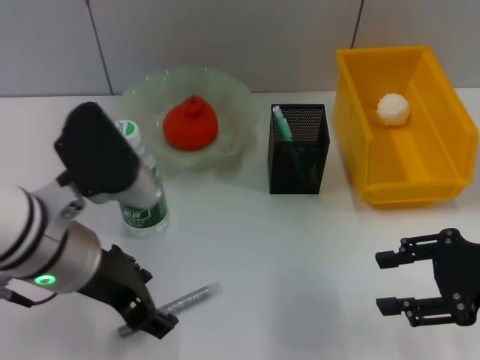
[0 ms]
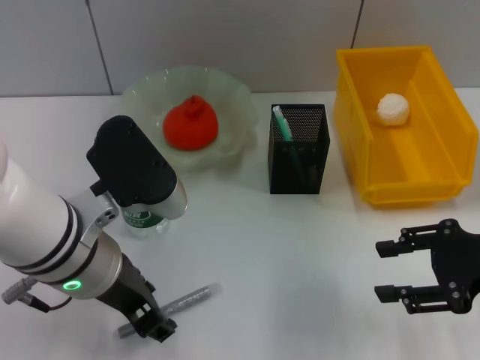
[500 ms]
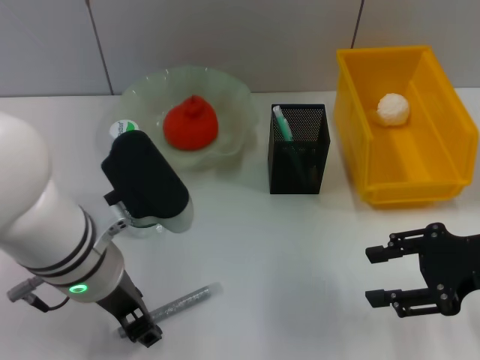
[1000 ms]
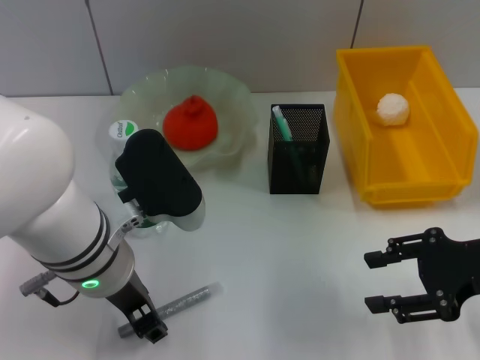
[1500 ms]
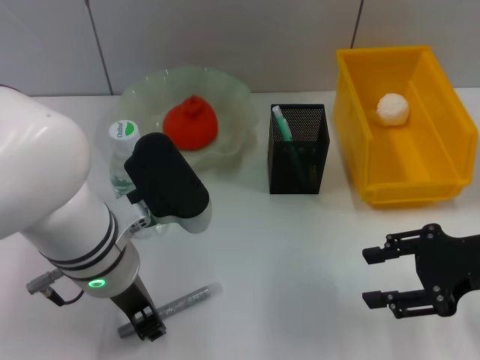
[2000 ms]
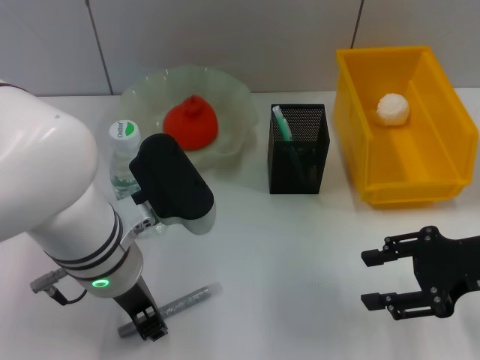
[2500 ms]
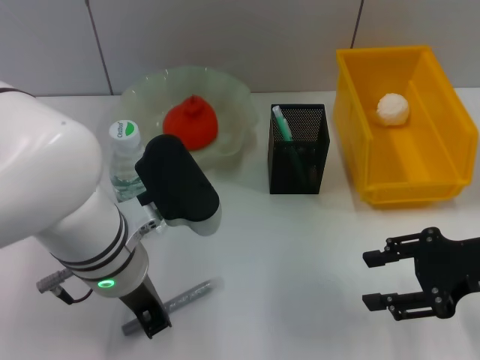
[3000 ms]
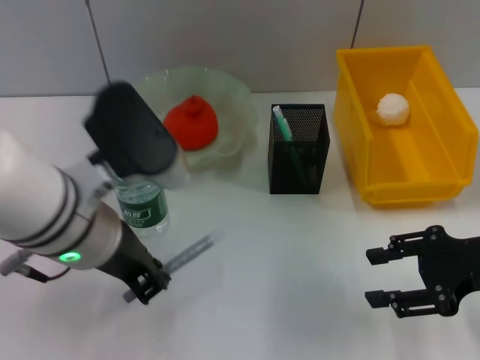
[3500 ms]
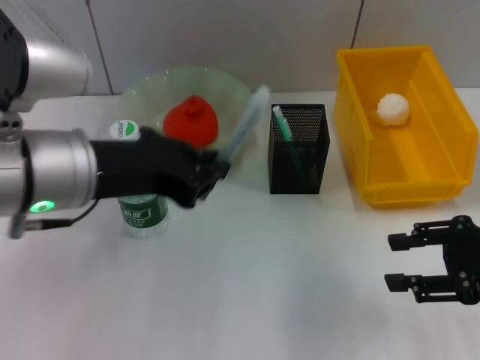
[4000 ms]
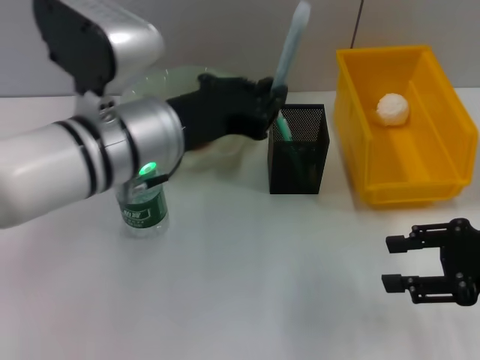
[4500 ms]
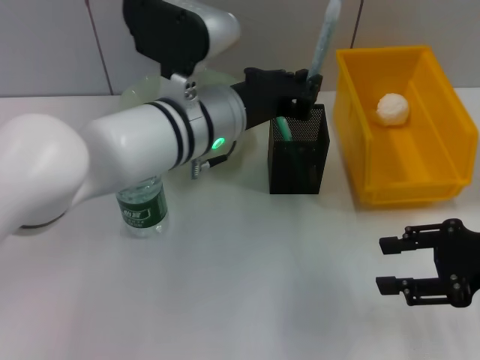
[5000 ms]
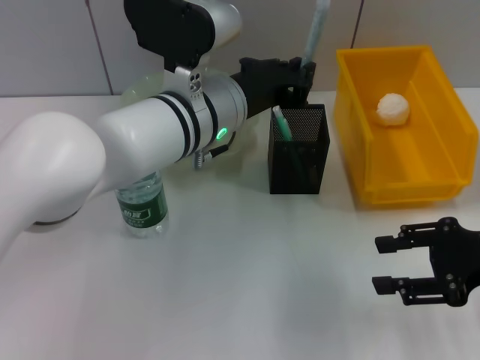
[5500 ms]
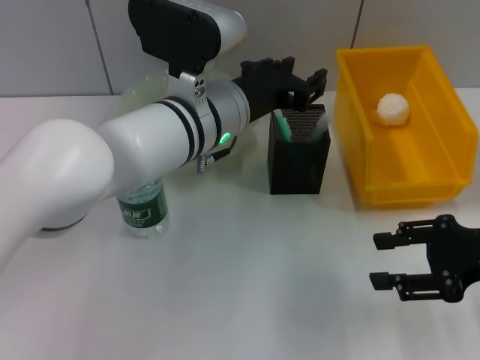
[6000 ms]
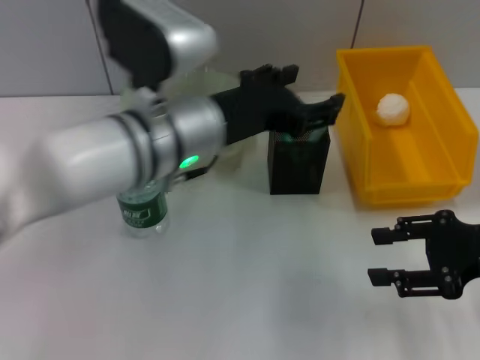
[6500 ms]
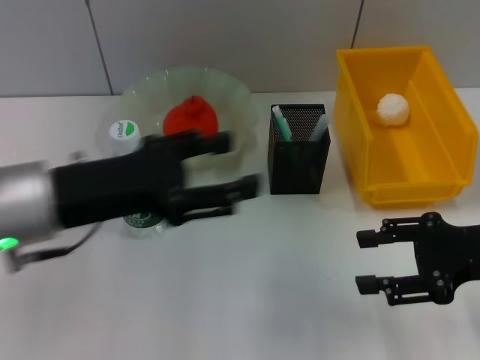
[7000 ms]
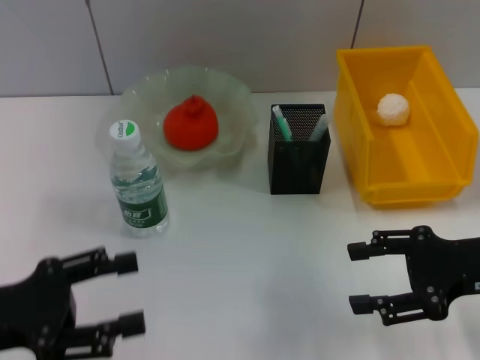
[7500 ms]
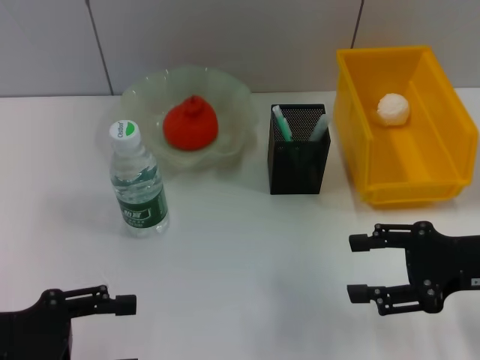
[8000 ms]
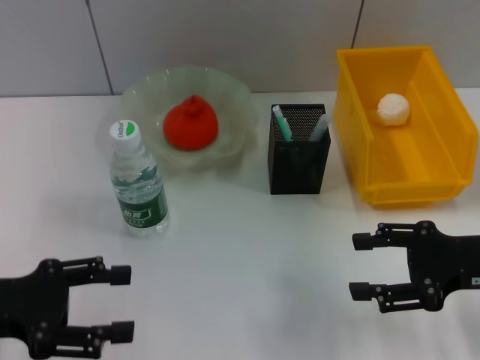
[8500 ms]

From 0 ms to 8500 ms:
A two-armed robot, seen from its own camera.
Step, from 0 ms to 2500 ms: Grab the gray glue with the left hand.
Step, from 3000 ms to 6000 ms: Place the gray glue into the pen holder with the left hand.
From 0 ms to 2000 ms: The grippers move only a little.
From 2000 ms to 4000 ms: The left gripper travels upward by approximately 10 cm, and closes.
From 4000 ms to 6500 ms: The left gripper shifts approximately 10 cm to the right and forward, and opens.
From 6500 ms to 8500 ms: The left gripper shifts about 25 cm to the left and backward.

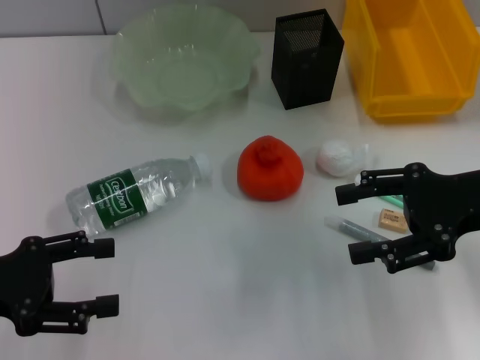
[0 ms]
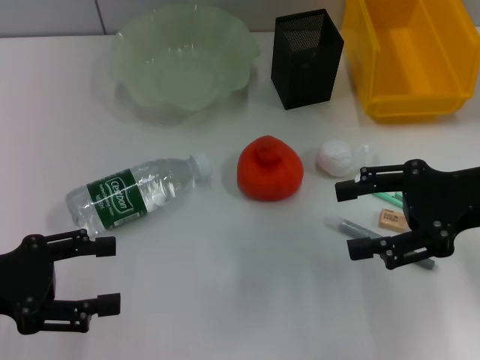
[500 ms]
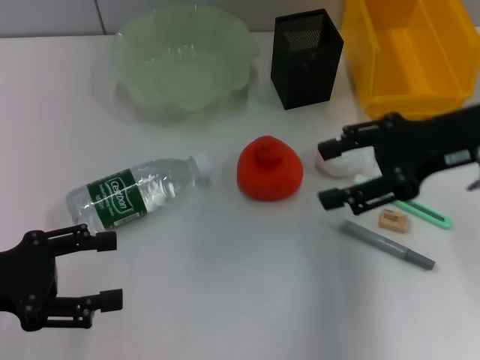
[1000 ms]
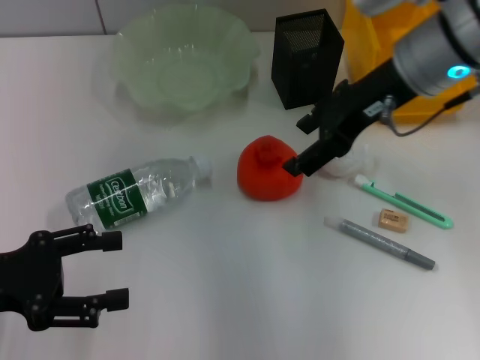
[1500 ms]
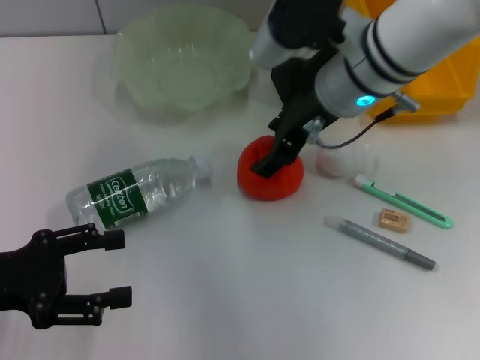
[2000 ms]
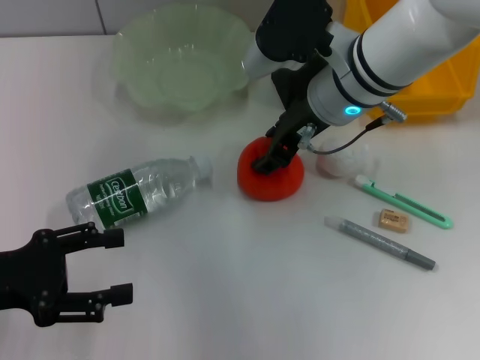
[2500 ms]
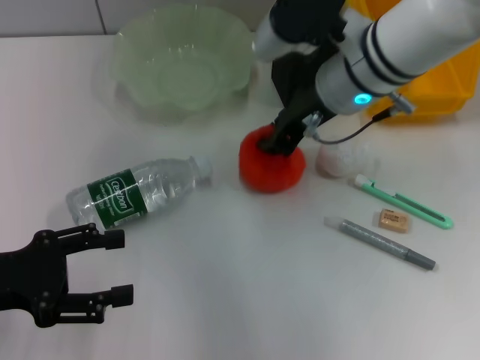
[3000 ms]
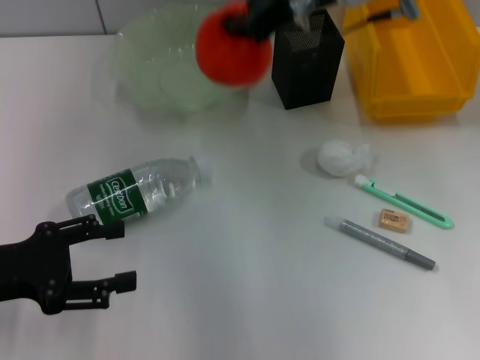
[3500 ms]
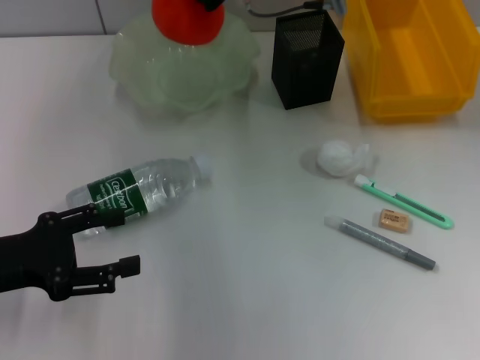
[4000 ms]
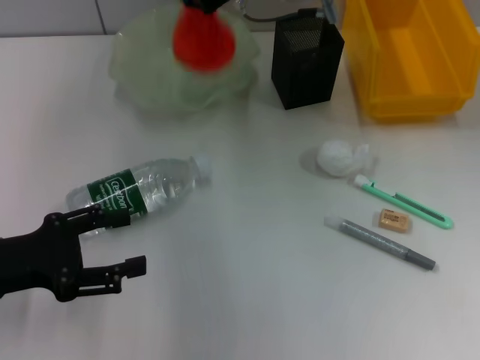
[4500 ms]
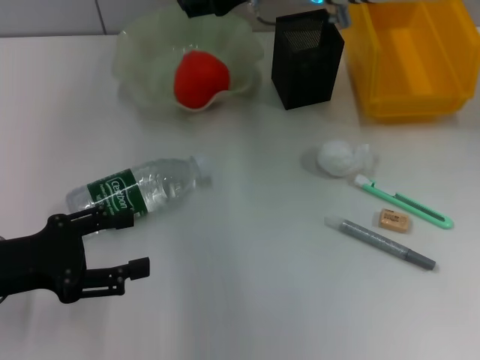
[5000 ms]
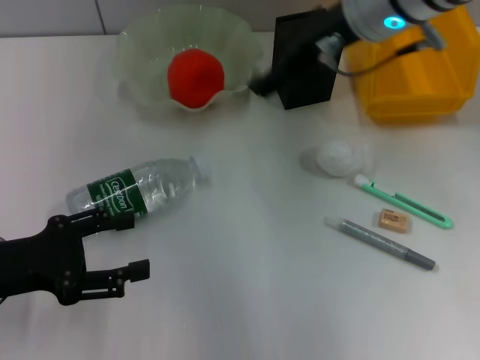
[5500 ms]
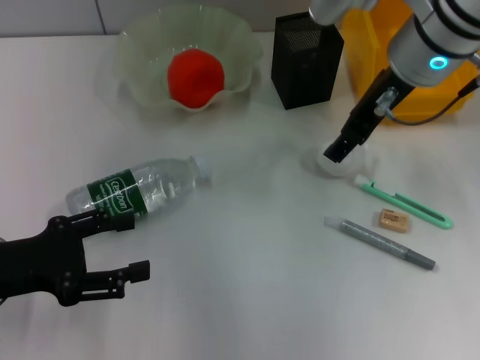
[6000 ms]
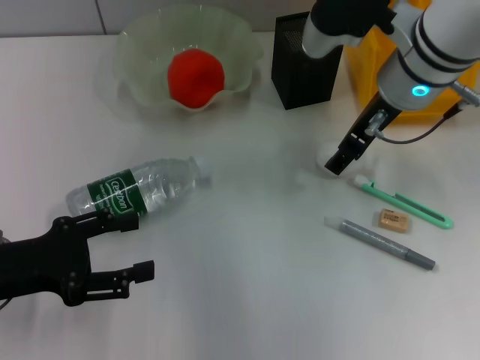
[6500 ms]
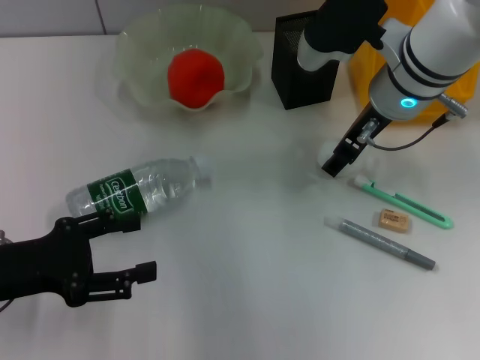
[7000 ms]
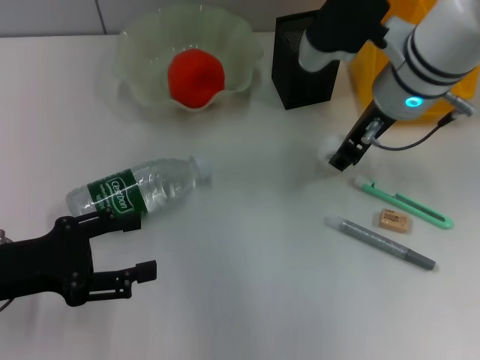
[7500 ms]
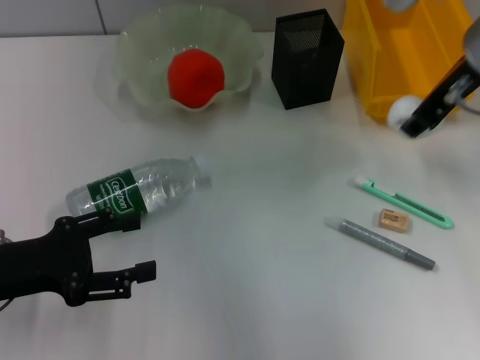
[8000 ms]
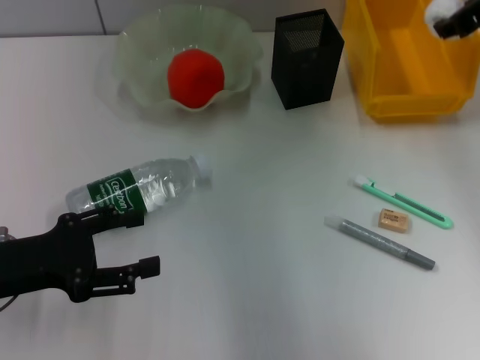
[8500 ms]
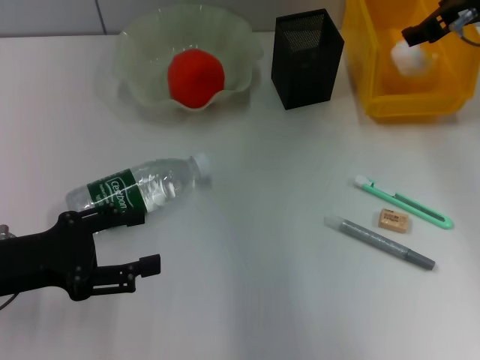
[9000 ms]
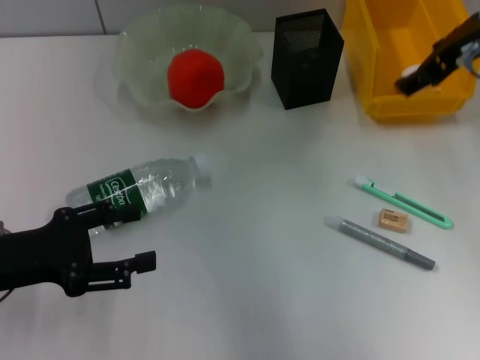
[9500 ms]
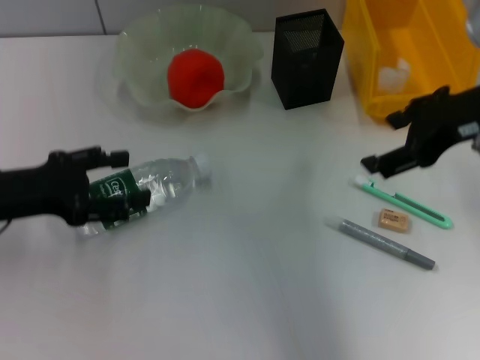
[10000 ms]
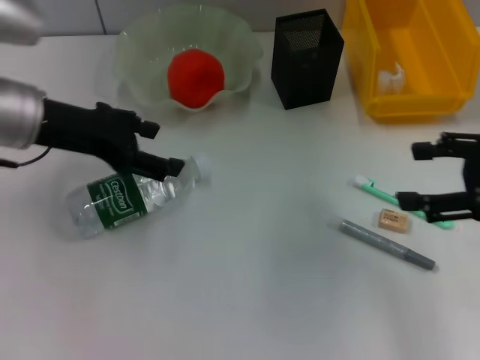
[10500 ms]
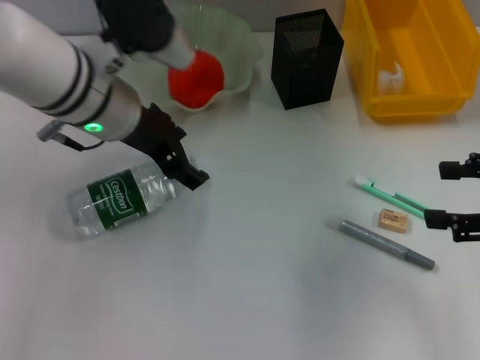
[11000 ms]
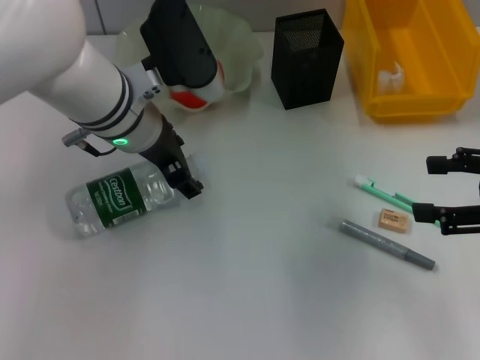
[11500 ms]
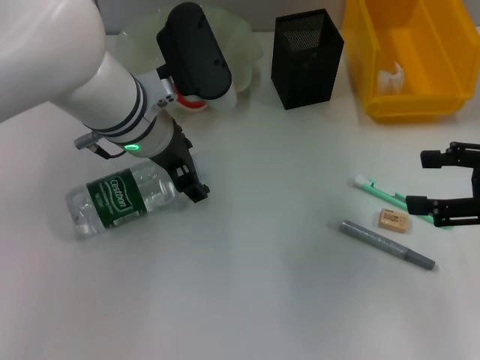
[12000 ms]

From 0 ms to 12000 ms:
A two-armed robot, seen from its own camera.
Step, from 0 ms to 2500 ms: Grab the orange with the right hand.
Step, from 3000 ms to 5000 ms: Place the orange into the fruit bowl with the right hand.
Step, from 5500 ms to 7000 ms: Grab the paper ball with the right hand.
Step, from 7500 ms to 9000 ms: Place the paper ball into the trash can with the right hand.
From 0 ms to 2000 ms: The right gripper goes about 20 cm to the left and forward.
From 2000 ms to 4000 ms: The right gripper heads forward, covering some 5 cm, and closes its fingers.
From 4000 ms to 6000 ms: The right gripper is displaced to the right and backward by about 10 cm, and opens its fingers.
From 6000 ms to 8000 ms: The right gripper travels to the right by about 5 cm, travels downward and back again, roughly 5 cm each way, and closes up.
From 8000 ms to 10000 ms: The left gripper heads forward, covering some 5 cm; the right gripper ends up roughly 5 cm from where it was, and opens its fingers.
From 10000 ms to 12000 ms: The right gripper goes about 15 cm to the right, backward and downward; the left gripper travels to the right and forward by some 20 cm.

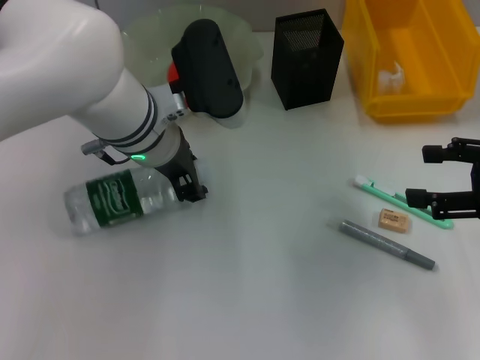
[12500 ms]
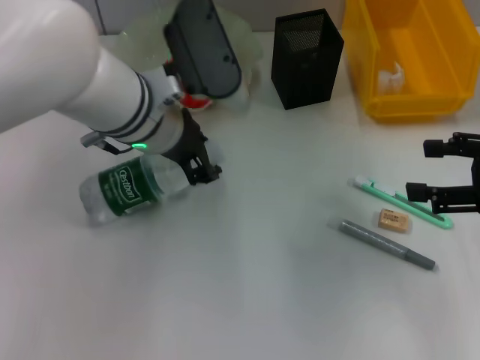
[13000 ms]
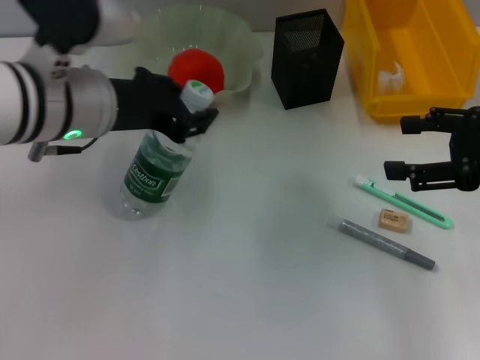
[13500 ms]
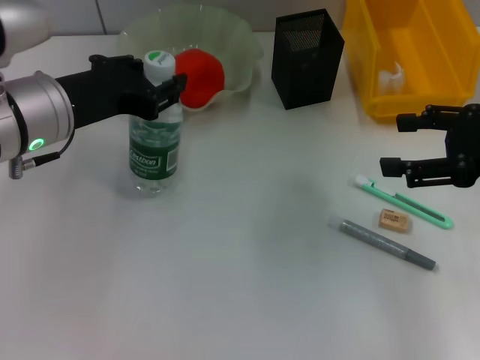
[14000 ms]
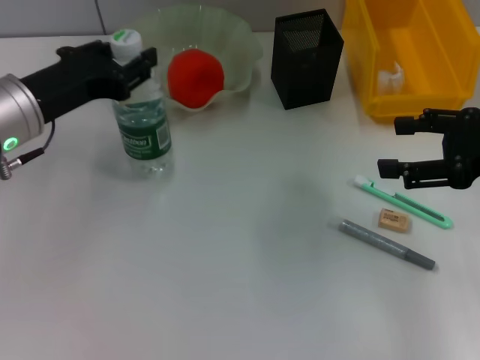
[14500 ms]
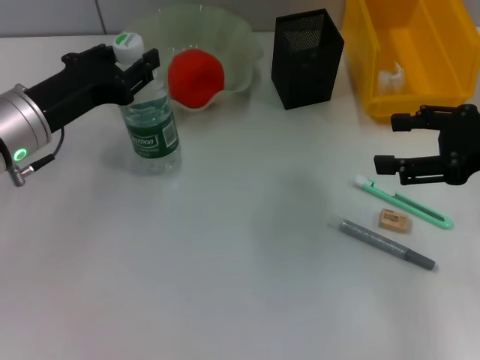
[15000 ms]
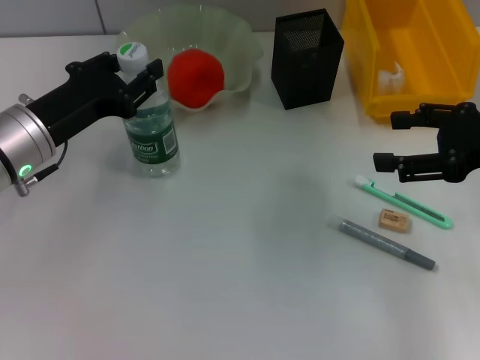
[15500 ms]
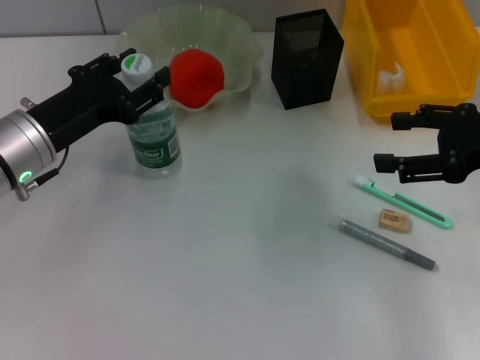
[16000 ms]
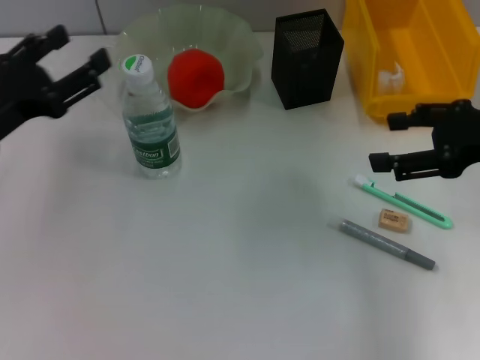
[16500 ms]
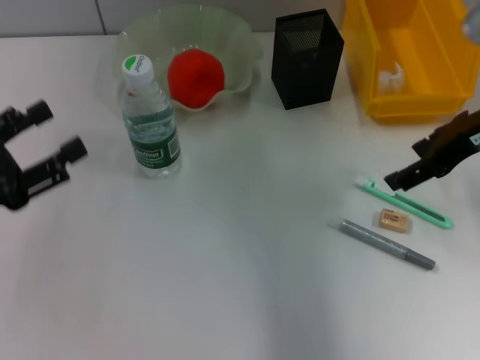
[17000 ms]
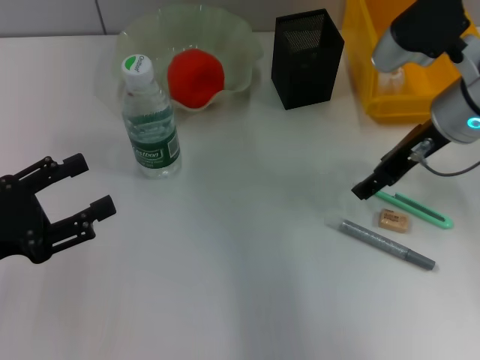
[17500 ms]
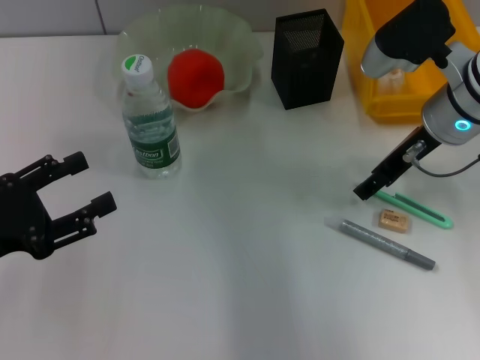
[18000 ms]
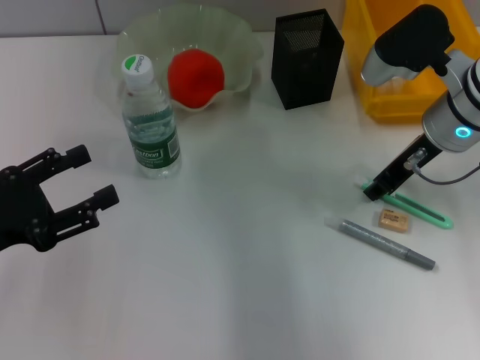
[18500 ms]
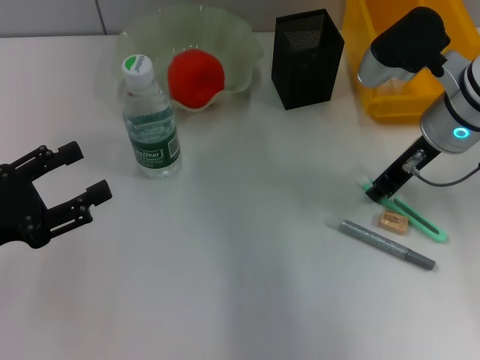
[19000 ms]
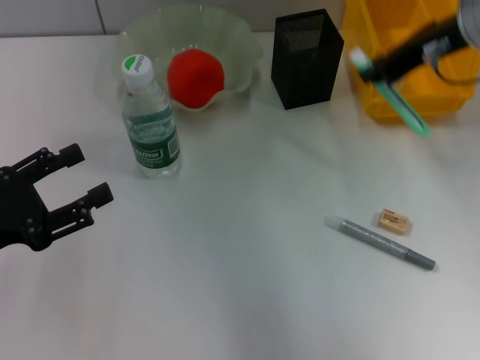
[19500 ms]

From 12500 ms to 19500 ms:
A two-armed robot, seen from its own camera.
Step, from 12500 ms to 16000 ms: Place the water bottle on the table with the left hand.
Step, from 16500 ms to 18500 ms: Grab the blue utility knife with the right hand.
From 12500 ms to 14500 ms: The left gripper goes about 15 cm to the left, and closes.
From 14500 ms to 16000 ms: There are only small adjustments of the grippers.
From 16000 ms to 17500 ms: The left gripper travels backward and to the left by roughly 15 cm, and opens, while the right gripper travels to the left and forward by approximately 15 cm.
From 17500 ms to 19500 ms: The right gripper shifts roughly 10 cm upward, and closes.
